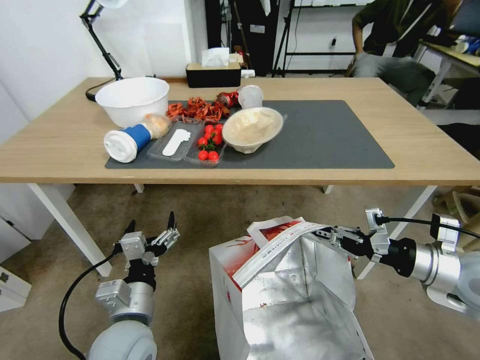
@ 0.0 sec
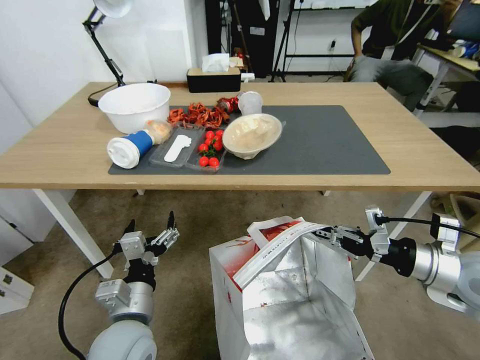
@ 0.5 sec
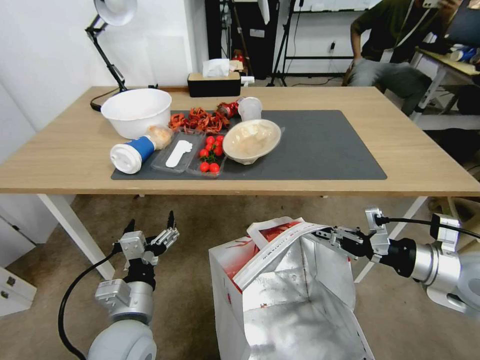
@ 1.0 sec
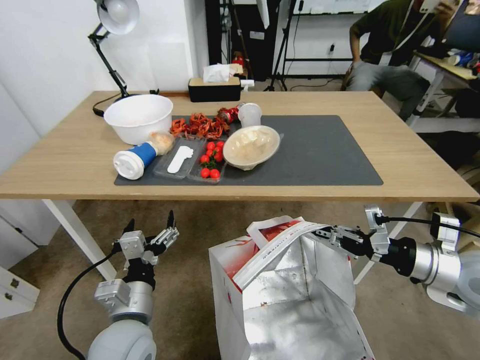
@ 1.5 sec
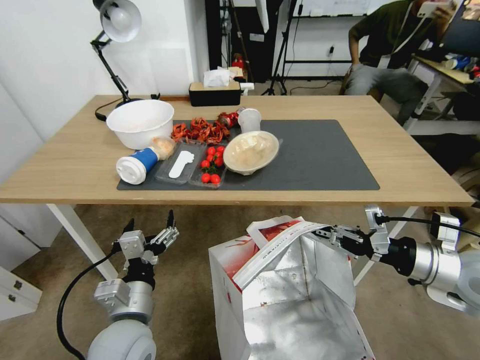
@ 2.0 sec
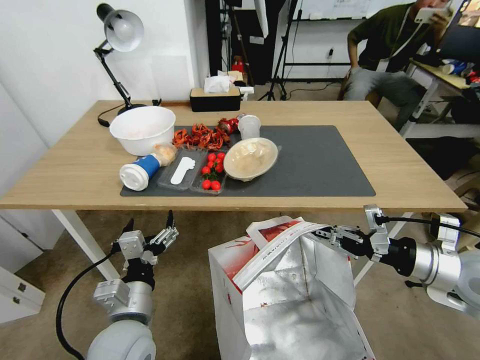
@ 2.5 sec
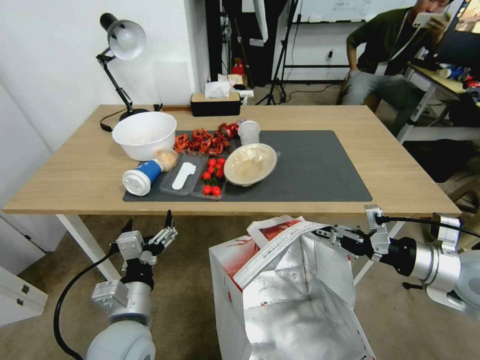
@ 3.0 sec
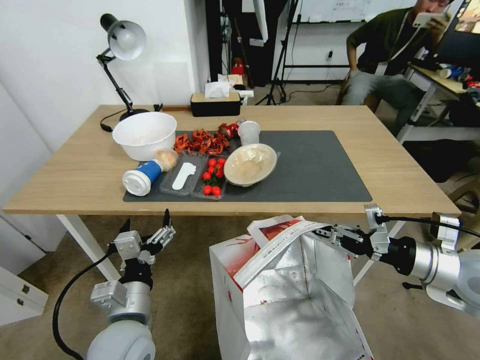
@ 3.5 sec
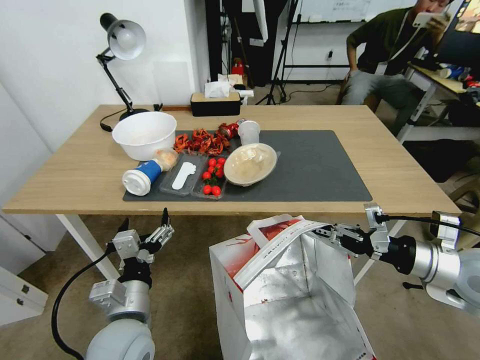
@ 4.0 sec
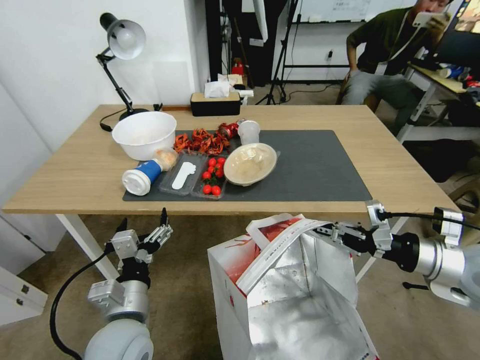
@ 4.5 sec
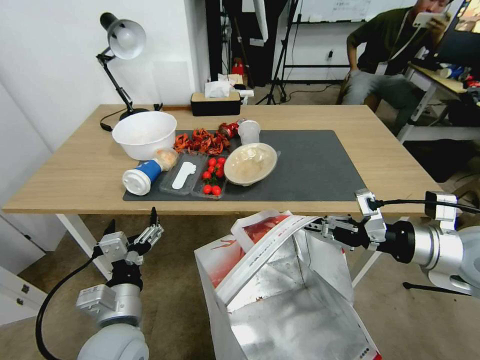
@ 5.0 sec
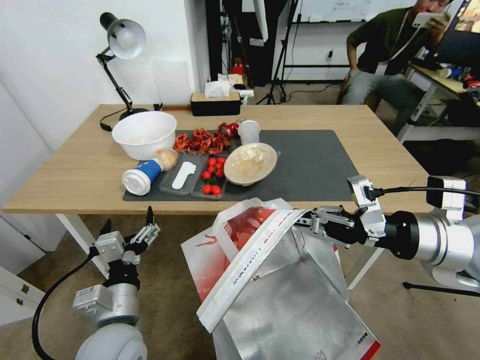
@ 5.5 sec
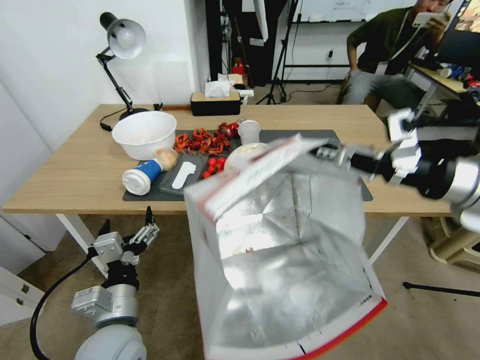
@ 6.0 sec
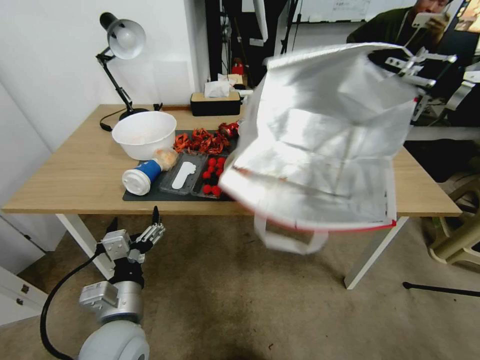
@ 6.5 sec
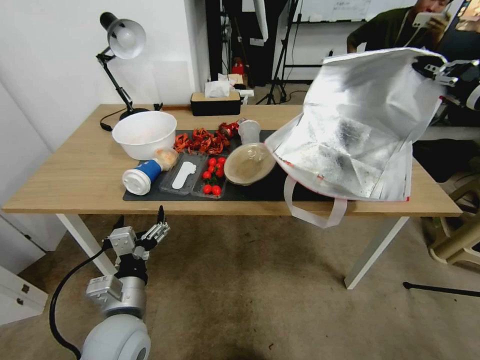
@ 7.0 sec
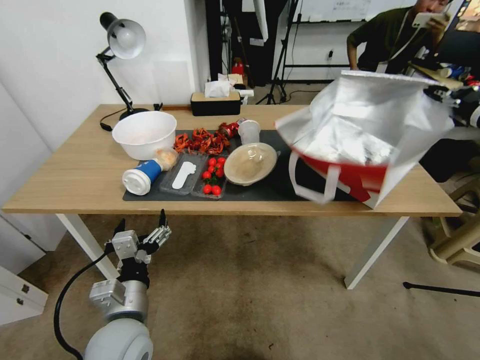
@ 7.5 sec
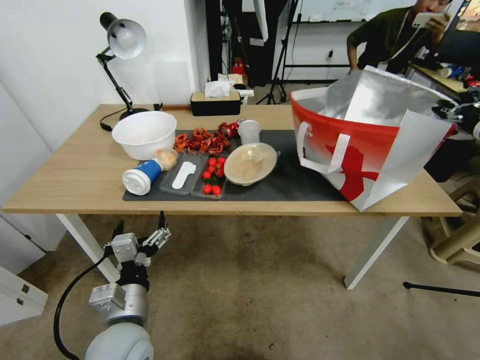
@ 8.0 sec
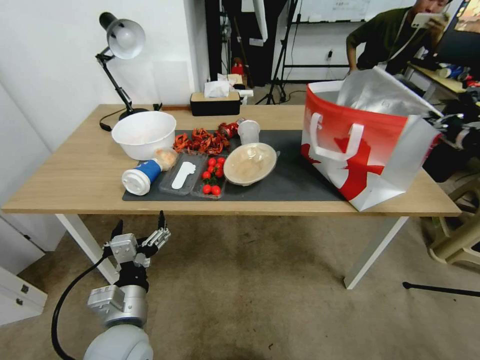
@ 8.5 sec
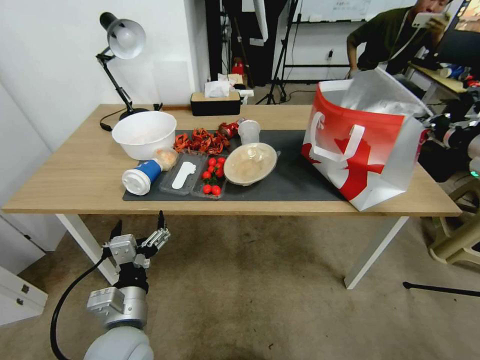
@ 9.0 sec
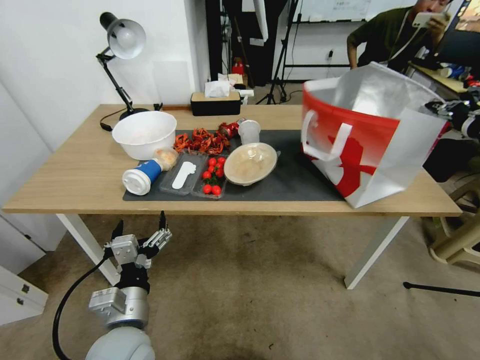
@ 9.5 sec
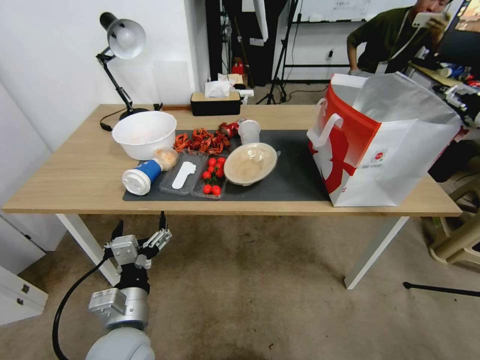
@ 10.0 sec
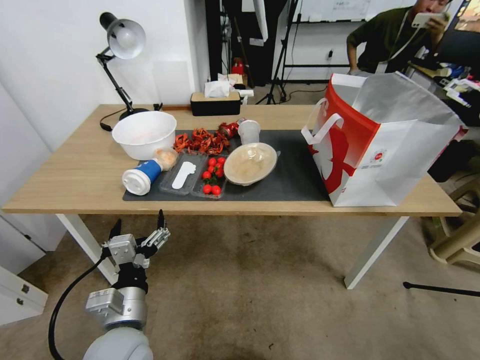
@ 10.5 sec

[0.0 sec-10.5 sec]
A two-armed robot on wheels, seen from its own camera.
Task of the whole recording: Pick up the food delivery bag from the floor and place it on the table.
4.0 sec to 6.5 sec: The right gripper travels upward by some 25 cm.
6.5 sec to 8.5 sec: The right gripper is displaced downward, to the right and forward by some 15 cm.
8.5 sec to 10.5 sec: The right gripper opens its fingers.

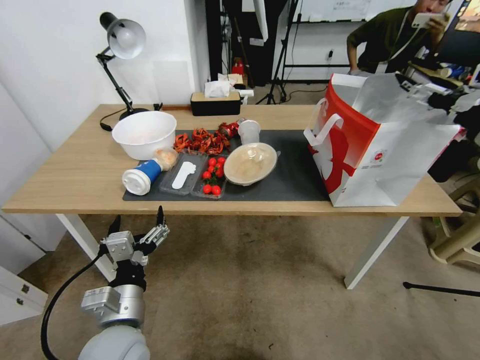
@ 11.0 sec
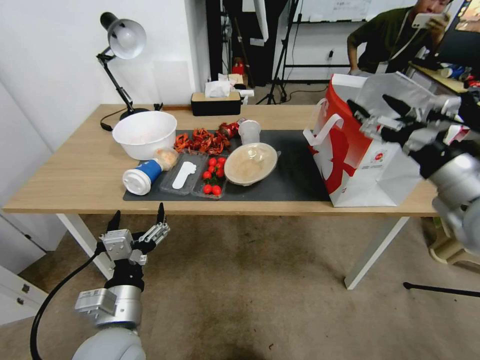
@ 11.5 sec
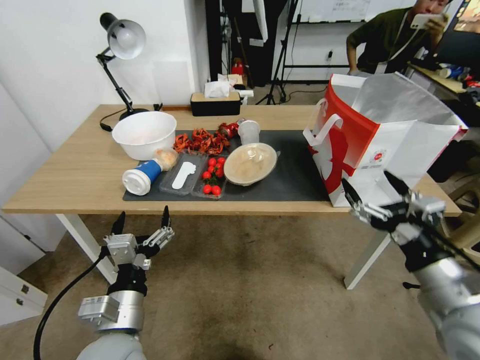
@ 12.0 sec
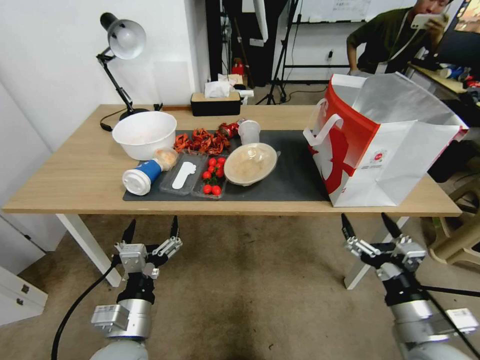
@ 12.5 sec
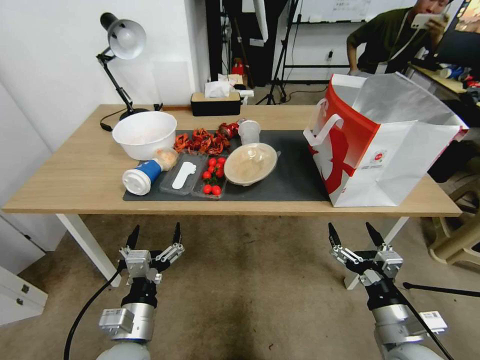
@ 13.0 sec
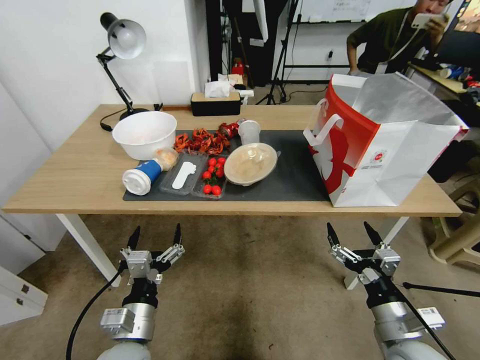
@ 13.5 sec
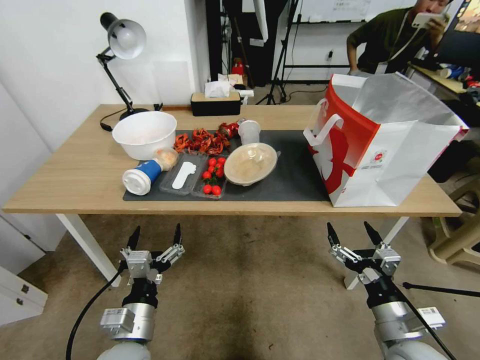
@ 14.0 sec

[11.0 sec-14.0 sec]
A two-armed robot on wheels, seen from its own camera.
Task of the whole recording: Pick up the food delivery bag from the floor and place it on the table.
11.0 sec to 12.5 sec: The right gripper travels downward, backward and to the left by some 35 cm.
12.5 sec to 14.0 sec: The grippers move only a little.

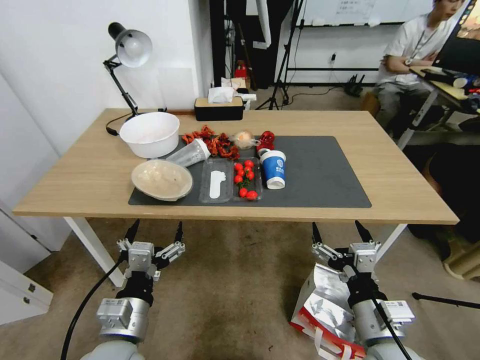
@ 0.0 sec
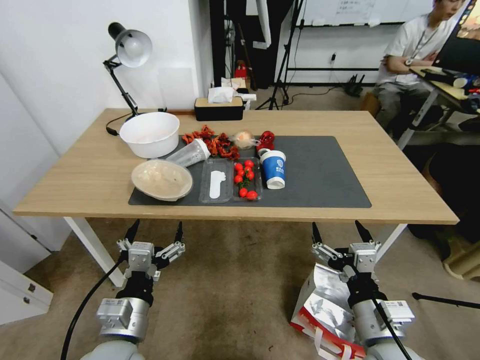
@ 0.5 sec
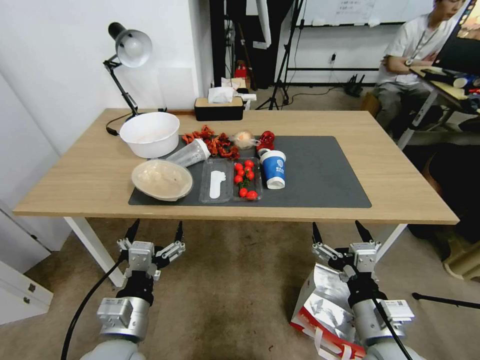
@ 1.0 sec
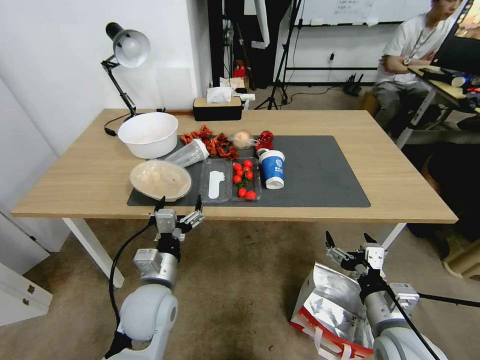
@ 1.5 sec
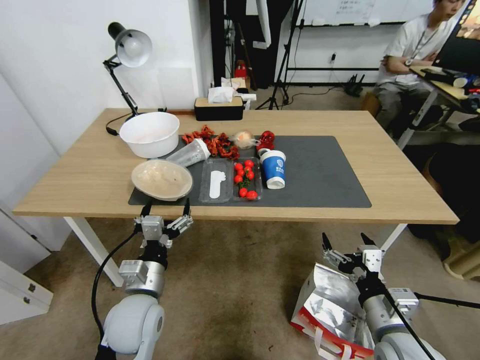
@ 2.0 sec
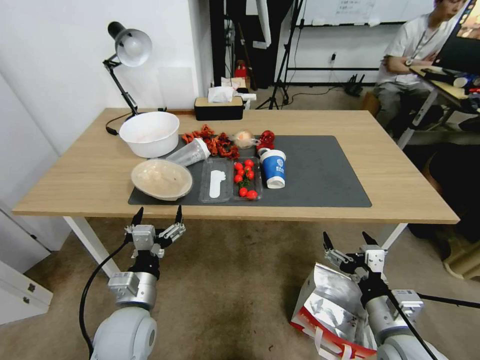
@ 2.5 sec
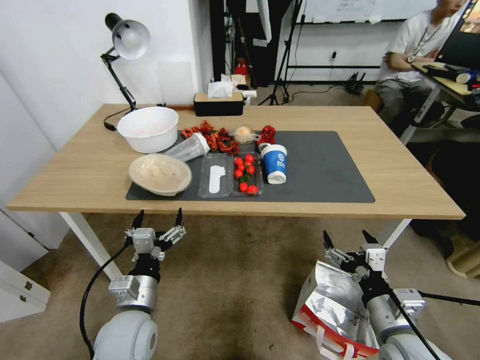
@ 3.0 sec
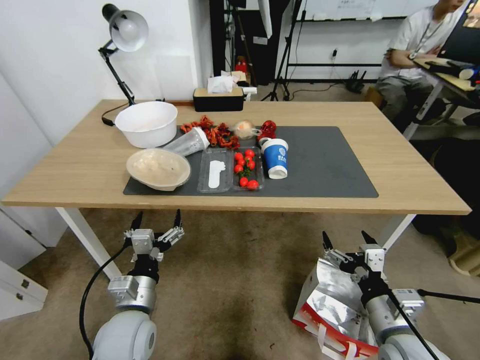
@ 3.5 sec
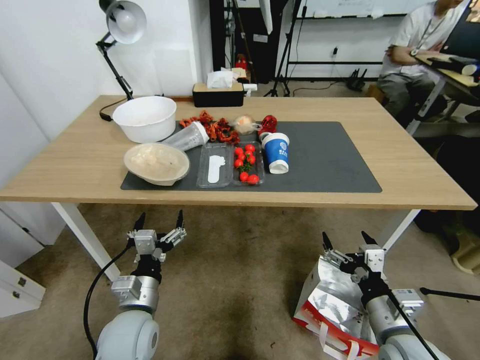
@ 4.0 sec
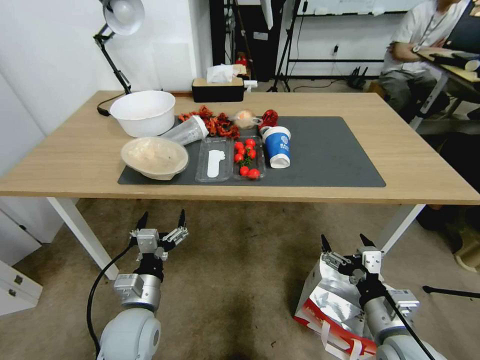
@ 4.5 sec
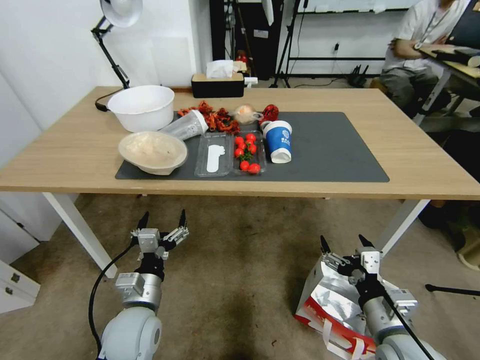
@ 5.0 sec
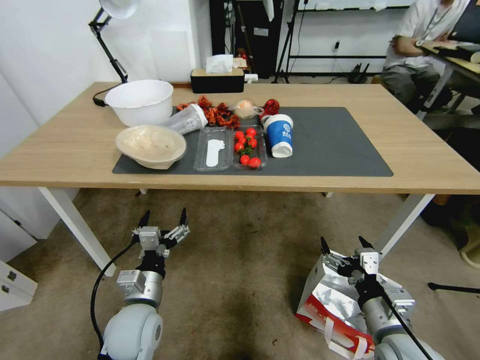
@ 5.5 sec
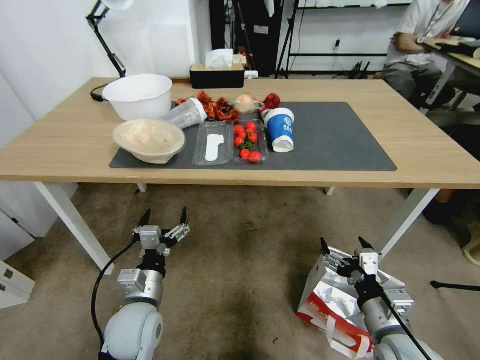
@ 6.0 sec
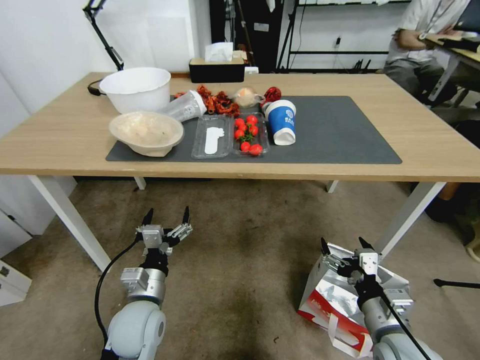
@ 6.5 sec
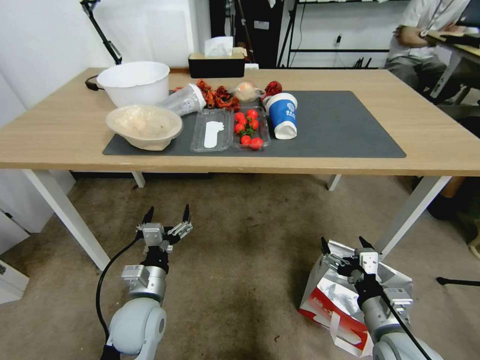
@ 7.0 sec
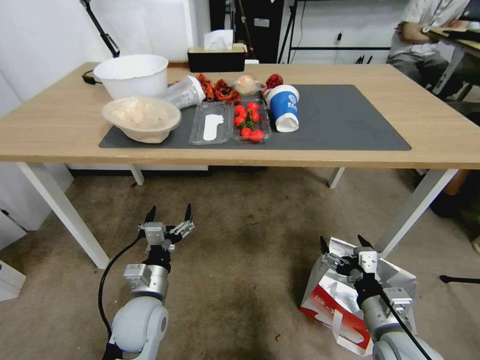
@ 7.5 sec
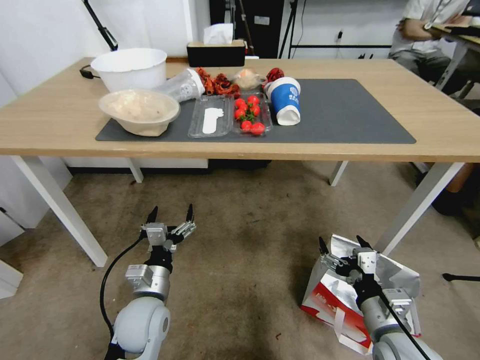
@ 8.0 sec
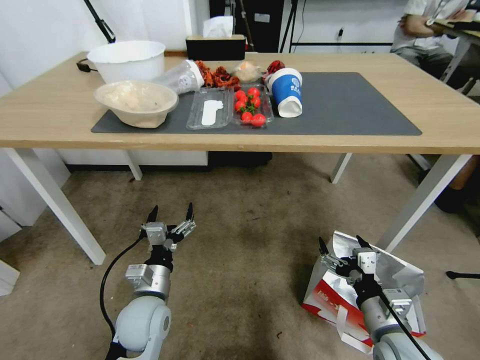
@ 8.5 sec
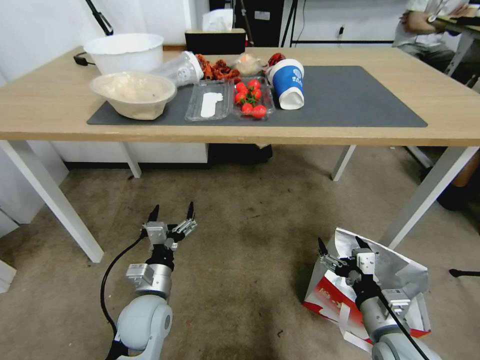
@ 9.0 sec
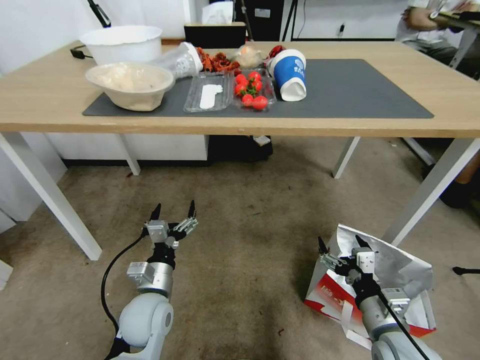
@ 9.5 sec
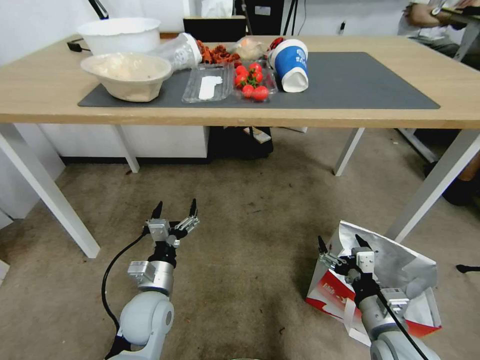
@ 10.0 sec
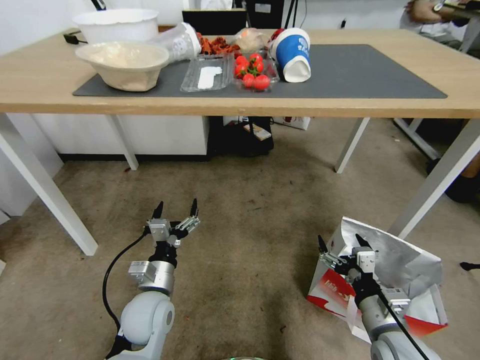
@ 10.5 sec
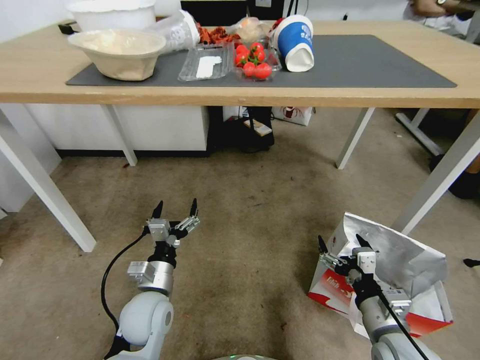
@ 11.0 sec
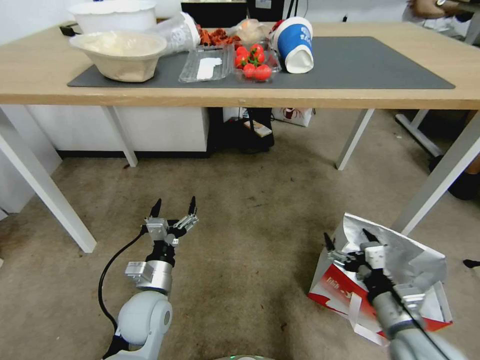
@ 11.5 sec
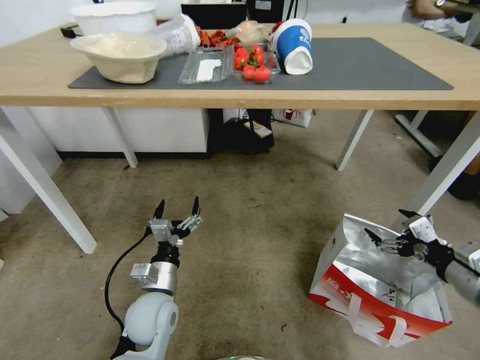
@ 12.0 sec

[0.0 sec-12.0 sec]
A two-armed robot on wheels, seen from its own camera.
Task of the whole recording: Pick up the food delivery bag from the floor and place it on the table.
10.0 sec to 12.0 sec: The right gripper shifts roughly 20 cm to the right and upward.
